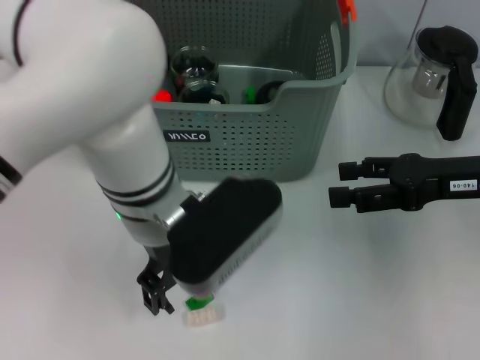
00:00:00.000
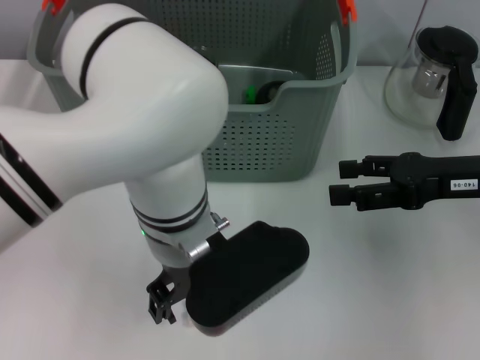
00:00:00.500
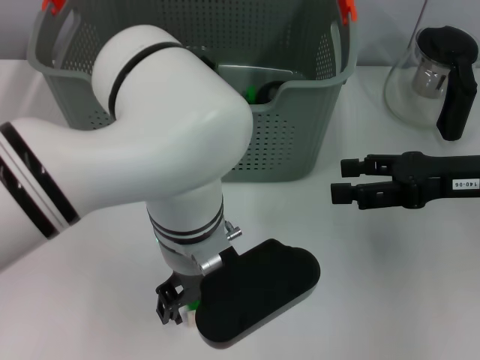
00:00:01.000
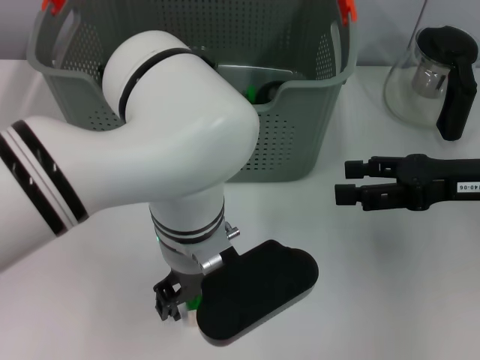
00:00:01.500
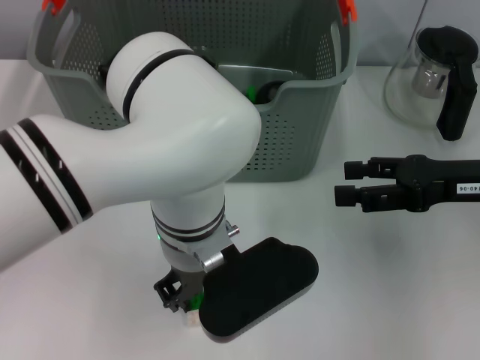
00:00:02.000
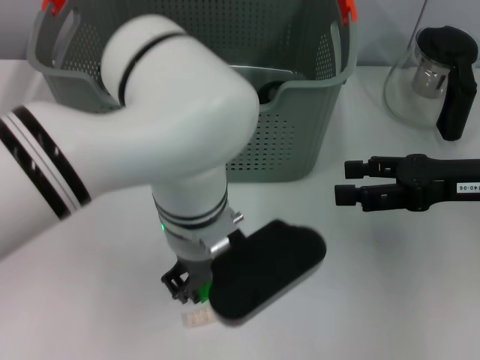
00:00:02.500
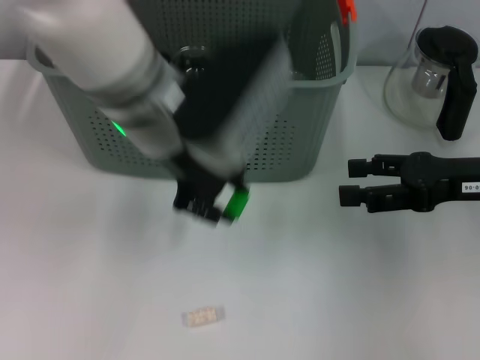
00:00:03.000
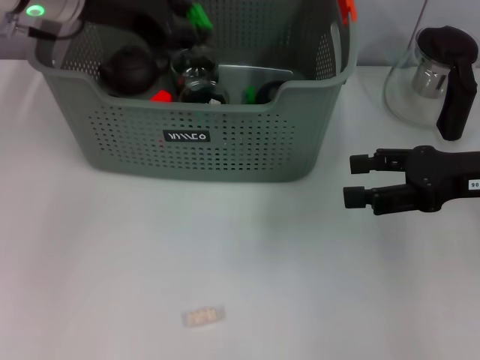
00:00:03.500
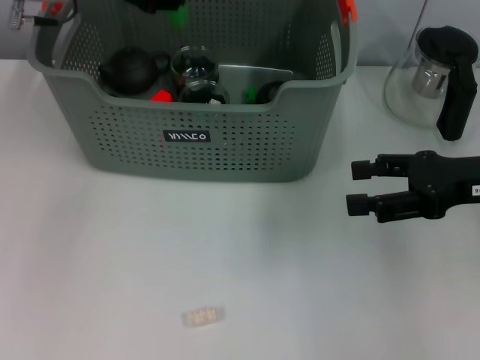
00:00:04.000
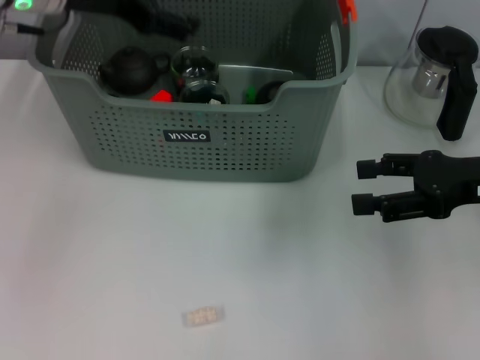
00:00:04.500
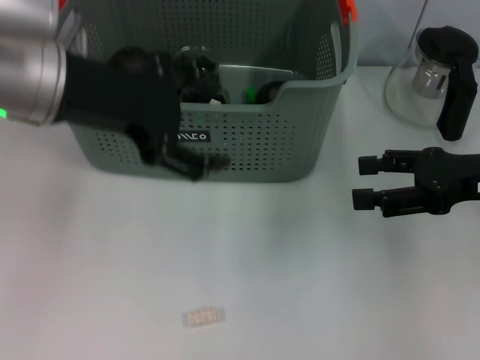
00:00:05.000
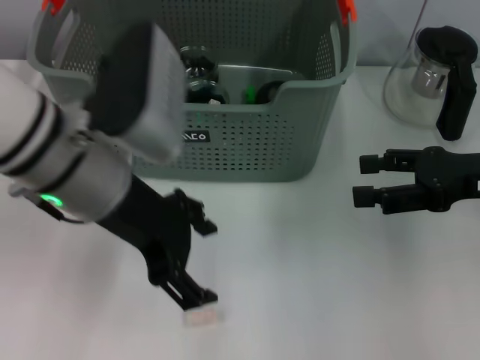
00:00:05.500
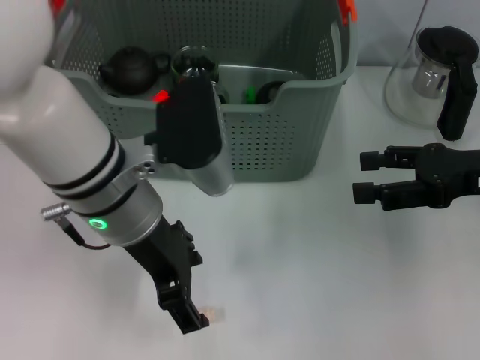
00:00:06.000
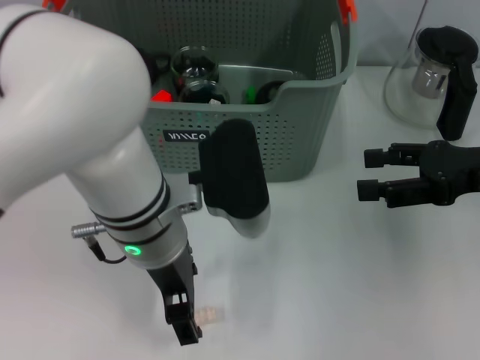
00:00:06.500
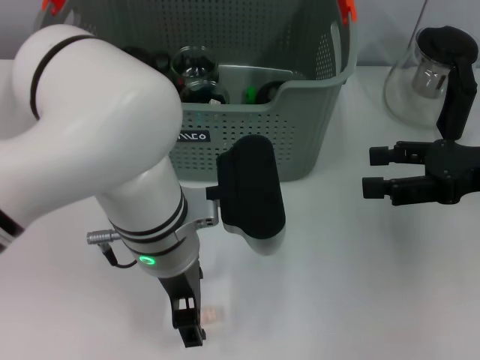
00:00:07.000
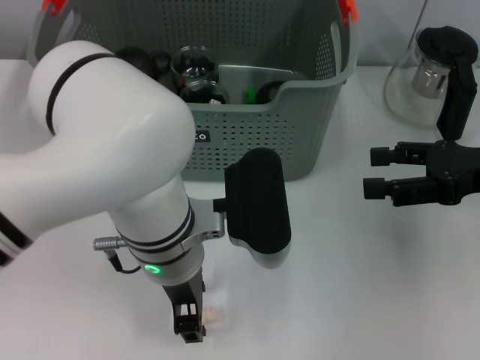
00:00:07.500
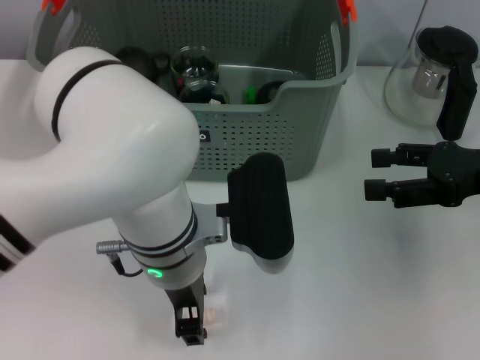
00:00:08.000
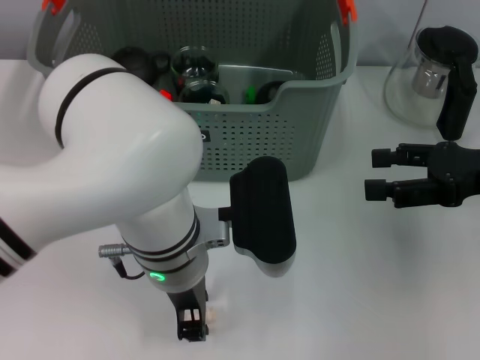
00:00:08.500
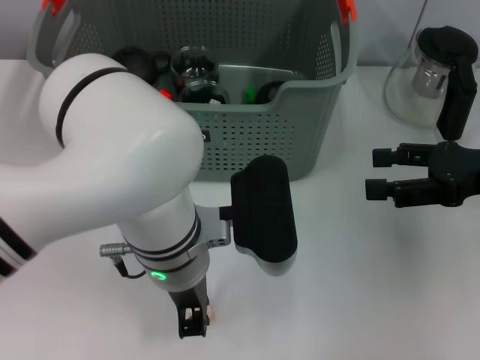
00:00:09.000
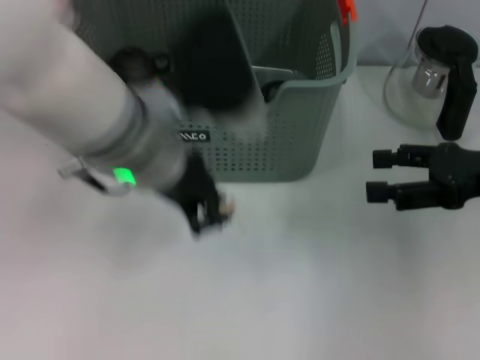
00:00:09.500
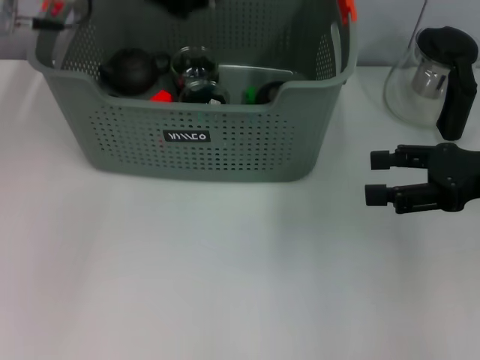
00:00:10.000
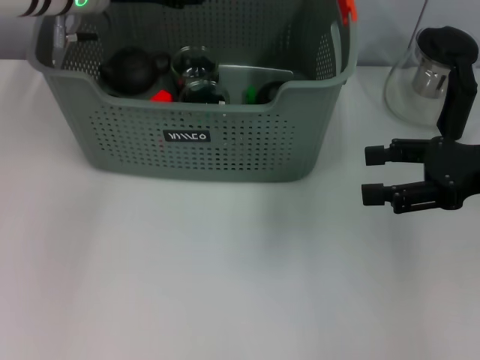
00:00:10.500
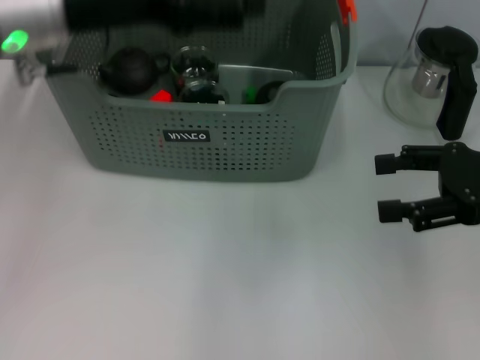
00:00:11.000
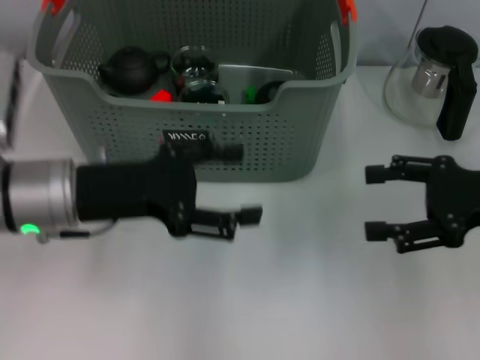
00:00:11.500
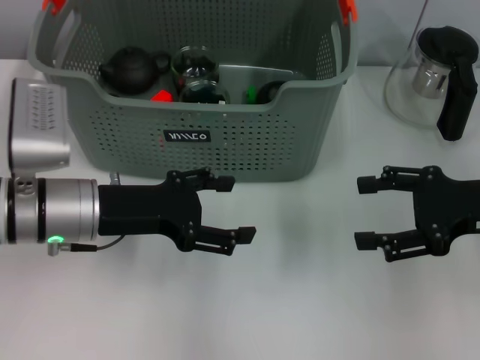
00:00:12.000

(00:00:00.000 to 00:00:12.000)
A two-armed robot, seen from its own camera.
Task of the whole recording: pick up the teacup on the table and place it into the storage bin, pick up the block on the table and place it into the storage bin.
Step, 00:00:00.000 - 00:00:02.000: Grasp the green block with left gripper.
Step, 00:00:02.500 - 00:00:04.000: Place the green block in the storage box with left gripper.
Step, 00:00:04.500 - 00:00:08.500: Grasp the white block with left gripper.
Step, 00:00:09.500 - 00:00:10.500: Place the white block in the storage box with left gripper.
00:00:00.000 - 00:00:02.000: The left gripper closes up.
00:00:02.000 - 00:00:04.000: The left gripper travels to the left, forward and upward by some 25 cm.
00:00:04.000 - 00:00:06.000: The left gripper goes roughly 20 cm backward, to the right and downward, and opens up.
00:00:06.000 - 00:00:08.000: The left gripper shifts about 5 cm to the right, and closes.
00:00:08.000 - 00:00:10.000: The left gripper is displaced upward, to the left and forward by some 20 cm, and closes up.
00:00:10.000 - 00:00:12.000: The left gripper moves downward, approximately 20 cm, and opens its fingers.

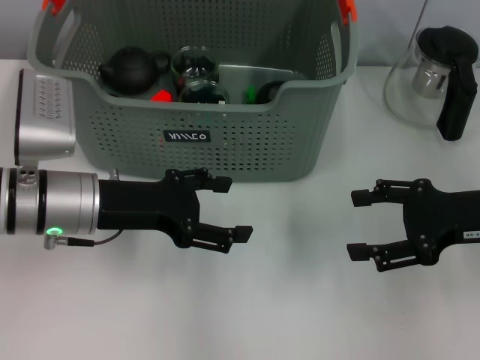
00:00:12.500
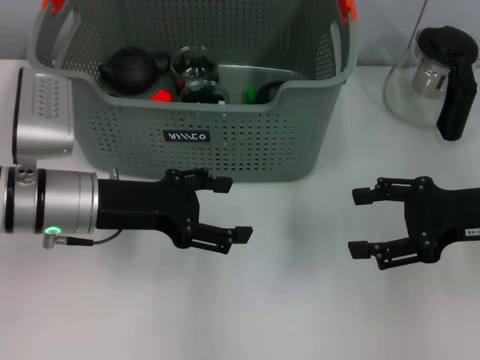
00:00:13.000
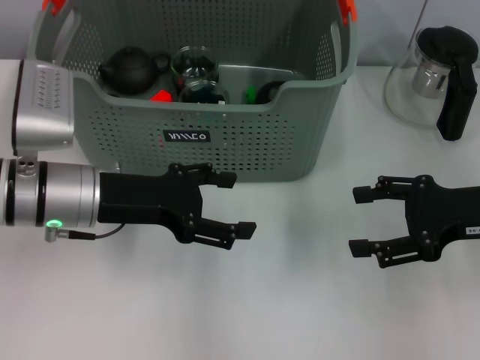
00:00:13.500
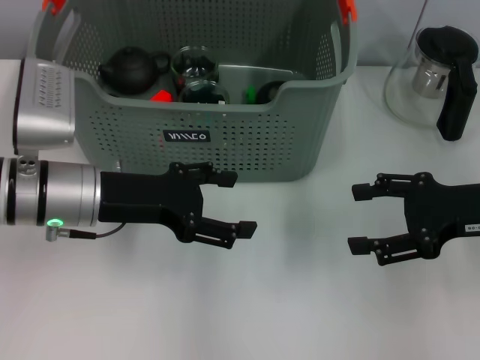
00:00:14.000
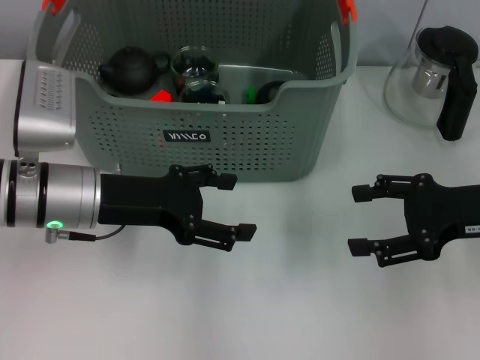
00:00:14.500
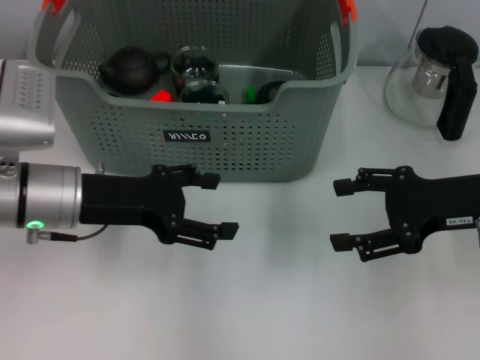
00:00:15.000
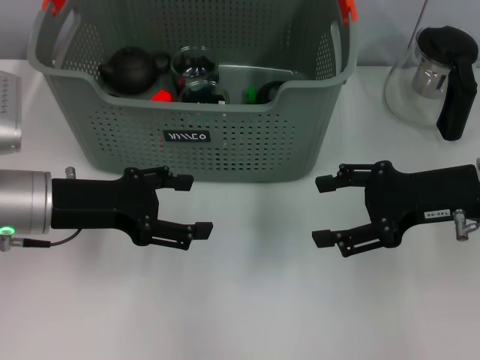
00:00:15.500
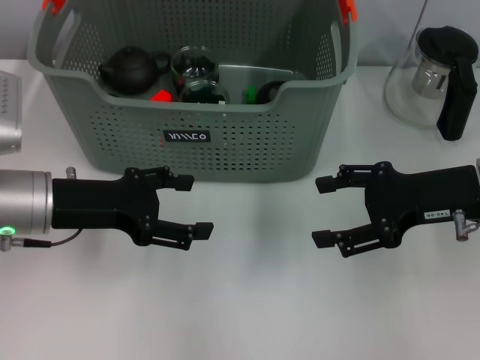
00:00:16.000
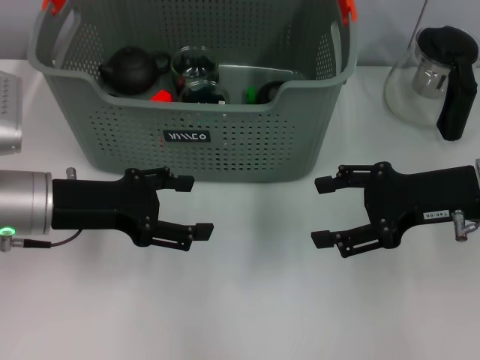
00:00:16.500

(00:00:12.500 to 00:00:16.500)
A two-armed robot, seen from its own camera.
Task of the whole recording: pick up the teacup on the table and place it into the storage bin, pick up the block on the table and place it into the storage bin.
00:00:12.500 - 00:00:14.500: Both grippers stay about where they are.
00:00:14.500 - 00:00:16.500: There are only small adjustments of the grippers.
